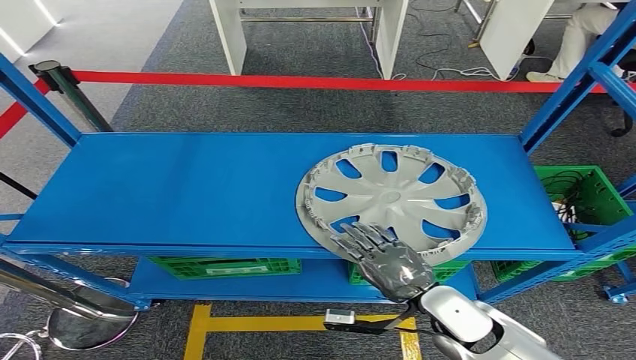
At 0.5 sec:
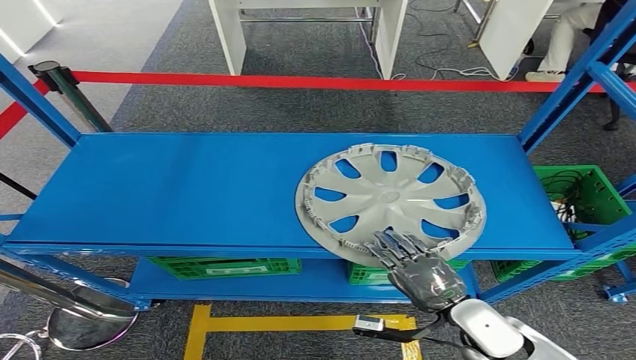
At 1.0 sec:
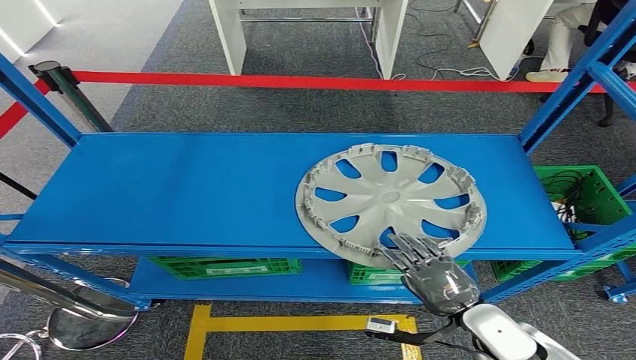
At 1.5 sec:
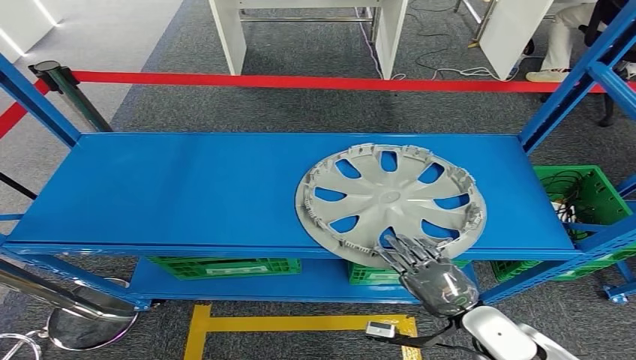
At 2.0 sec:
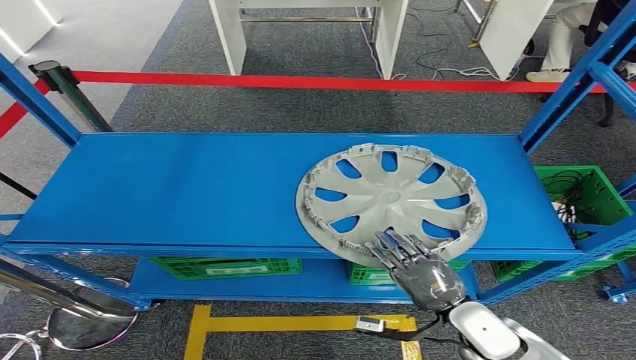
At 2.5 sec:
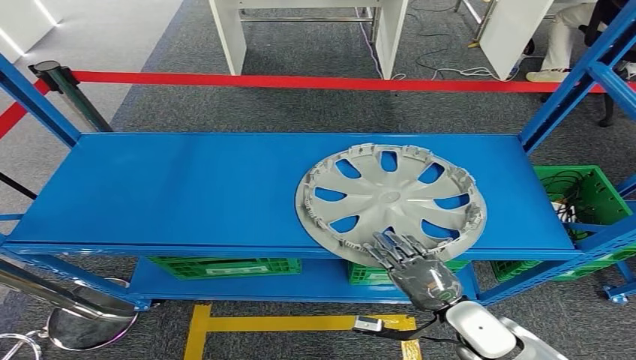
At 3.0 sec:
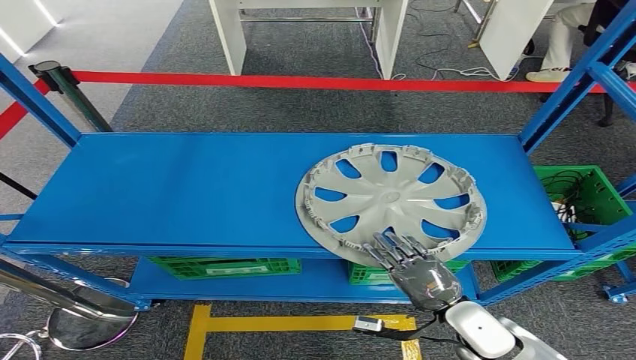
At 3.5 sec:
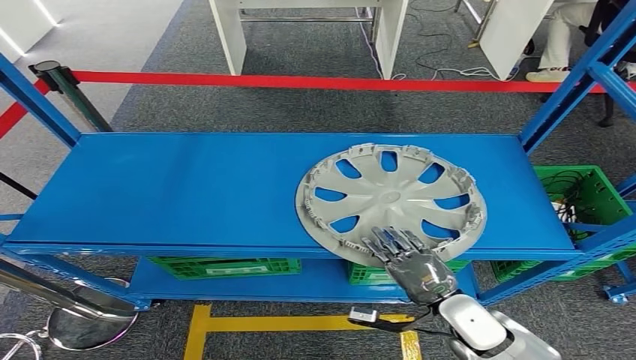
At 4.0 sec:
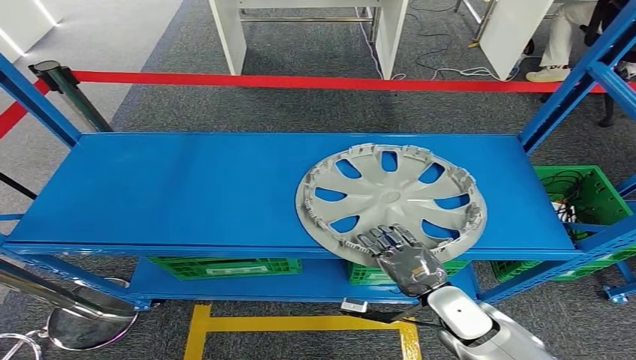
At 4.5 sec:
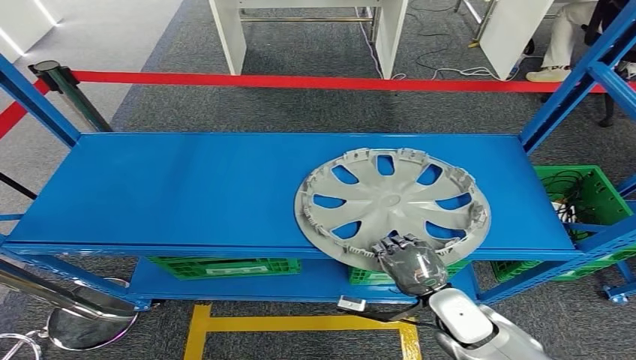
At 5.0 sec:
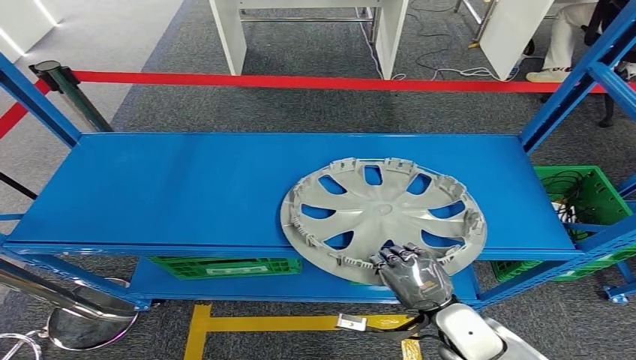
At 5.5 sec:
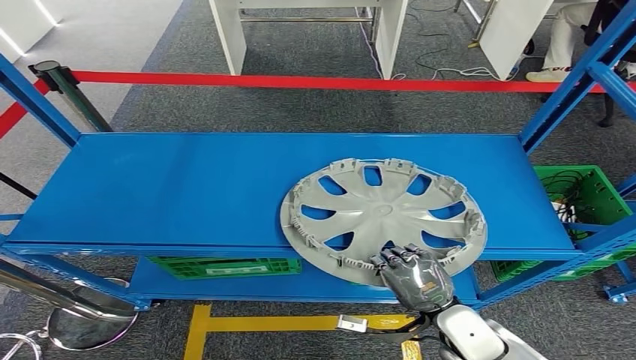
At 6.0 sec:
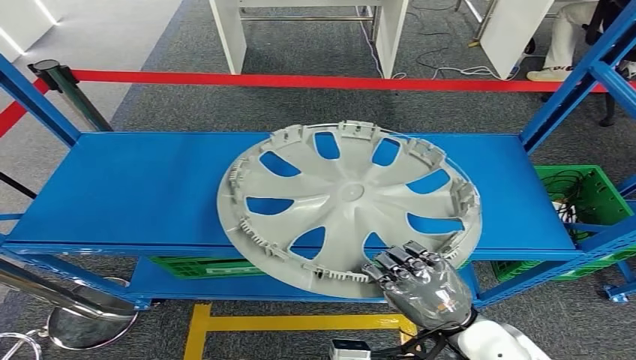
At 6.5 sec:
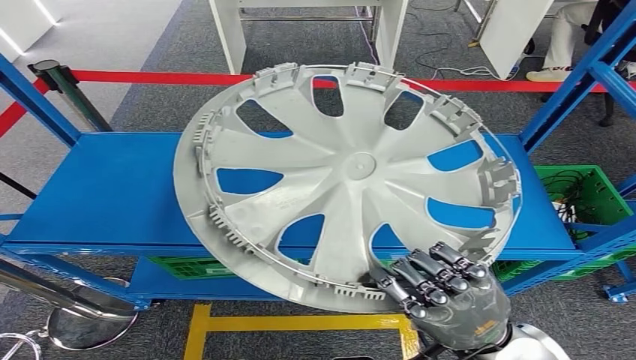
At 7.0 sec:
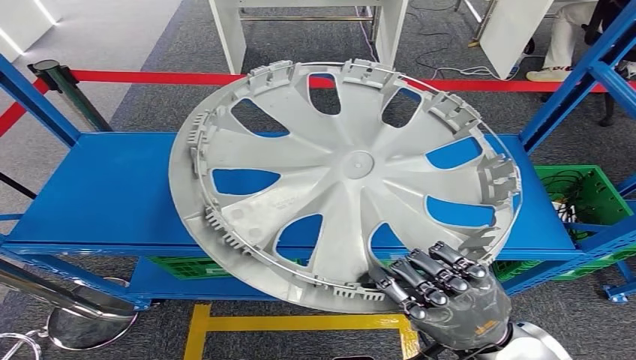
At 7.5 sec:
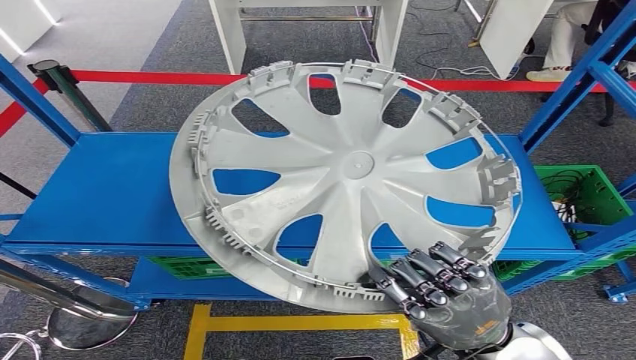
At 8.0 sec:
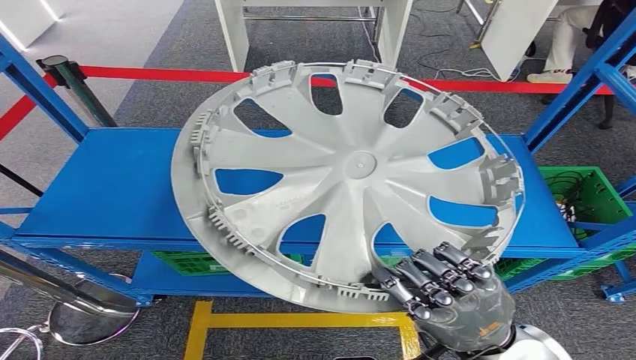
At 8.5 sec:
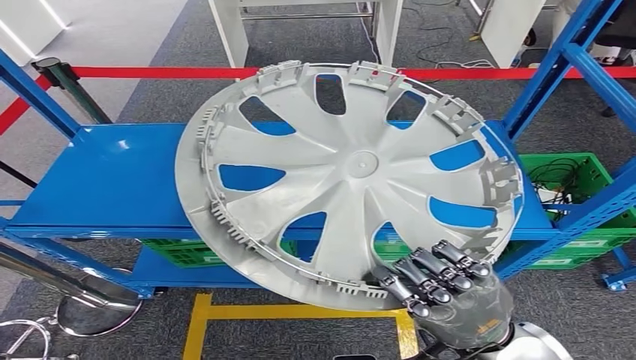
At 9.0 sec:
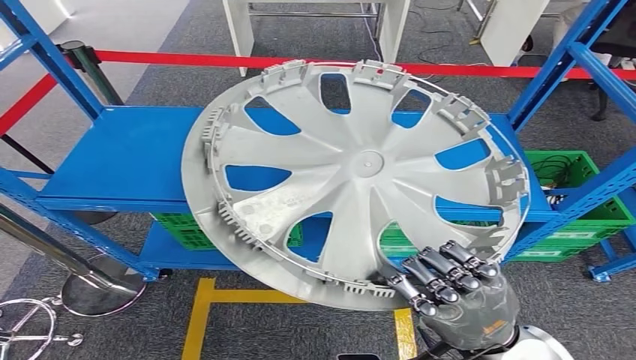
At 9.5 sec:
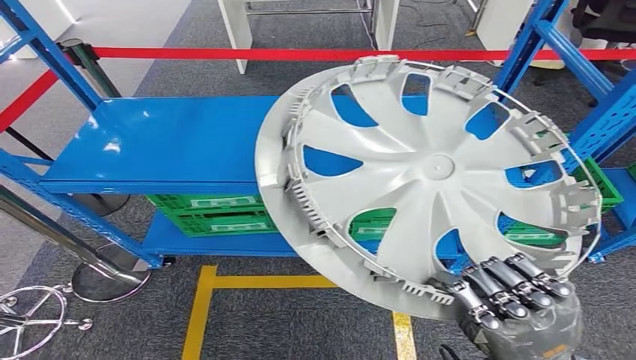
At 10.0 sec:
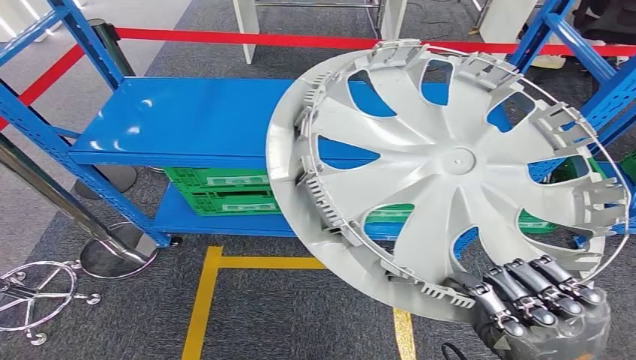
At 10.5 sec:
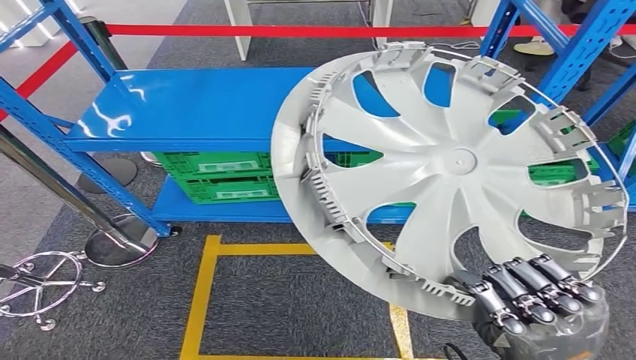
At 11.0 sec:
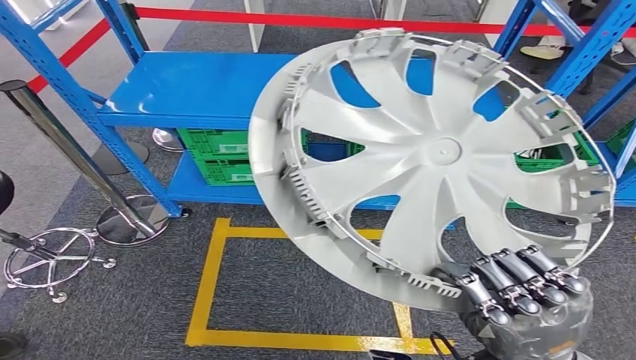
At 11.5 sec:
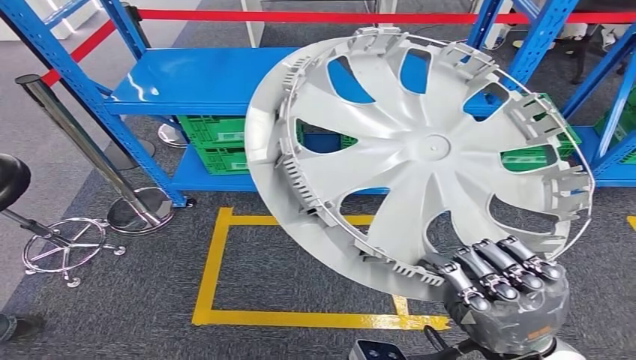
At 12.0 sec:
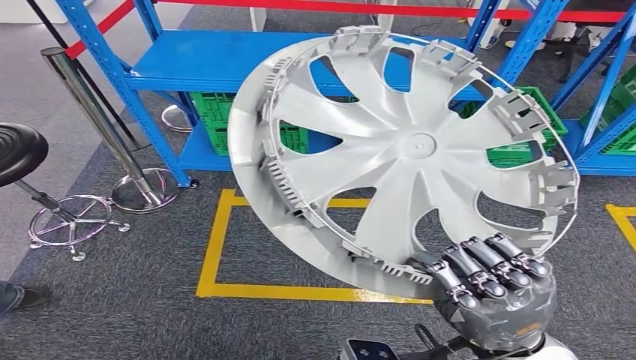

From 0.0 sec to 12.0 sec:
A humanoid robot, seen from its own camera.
Step, from 0.0 sec to 8.0 sec: Pick up the small component from the shelf.
From 0.0 sec to 2.0 sec: The right hand moves approximately 5 cm.
From 2.0 sec to 4.0 sec: The hands move only a little.
From 4.0 sec to 6.0 sec: The right hand shifts about 10 cm upward and backward.

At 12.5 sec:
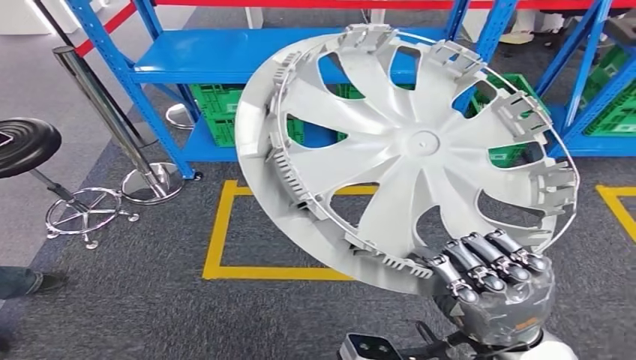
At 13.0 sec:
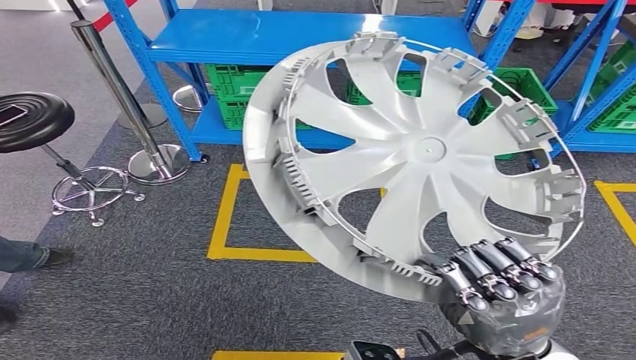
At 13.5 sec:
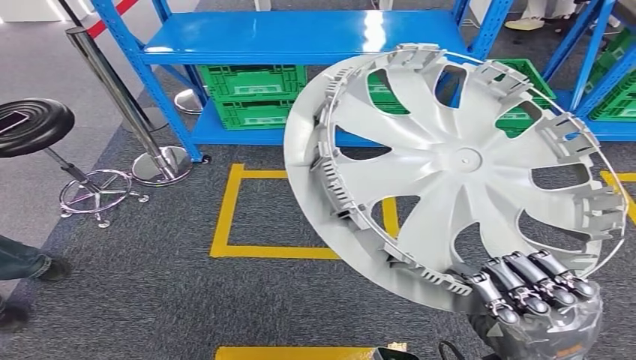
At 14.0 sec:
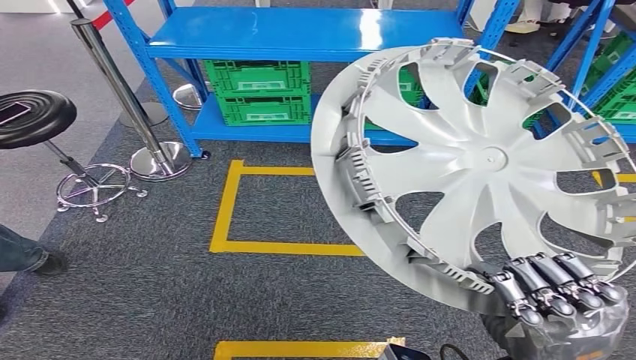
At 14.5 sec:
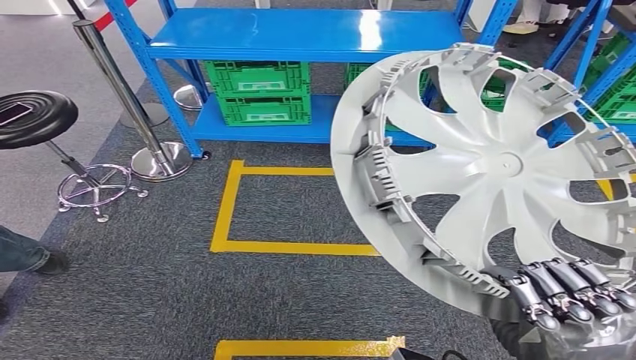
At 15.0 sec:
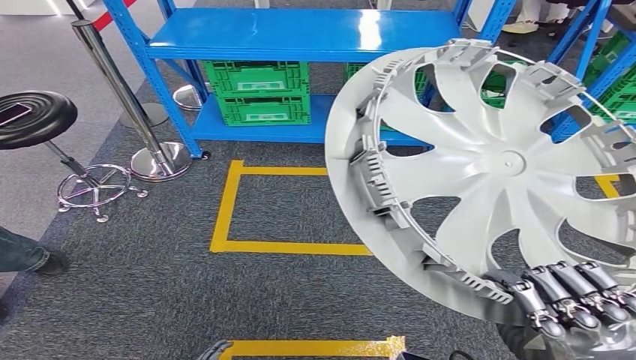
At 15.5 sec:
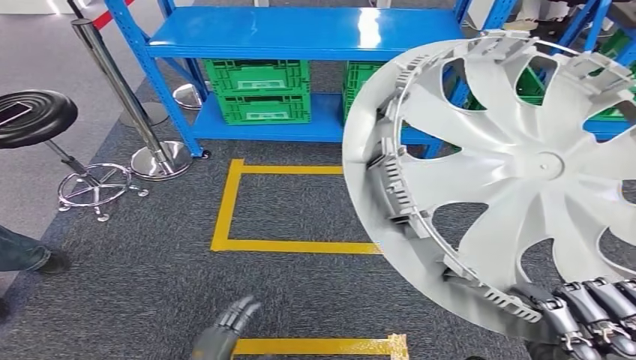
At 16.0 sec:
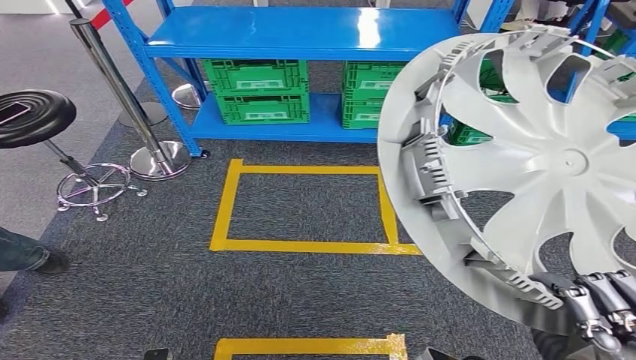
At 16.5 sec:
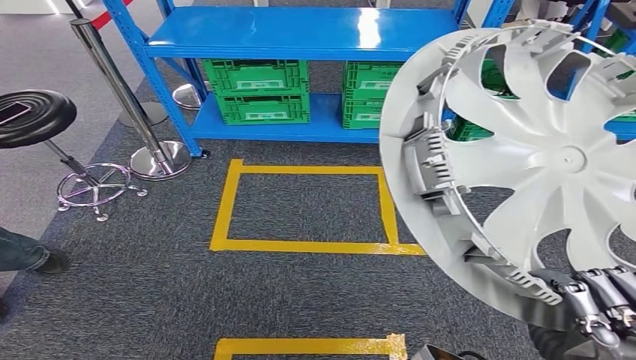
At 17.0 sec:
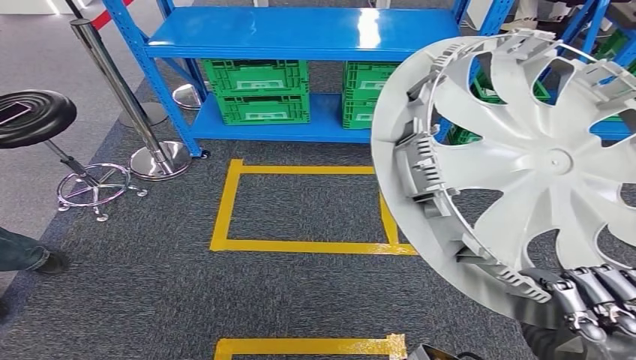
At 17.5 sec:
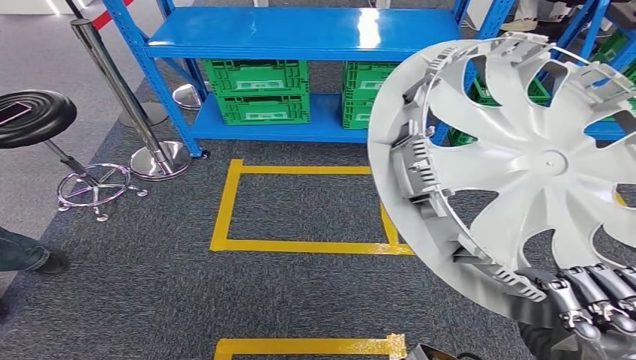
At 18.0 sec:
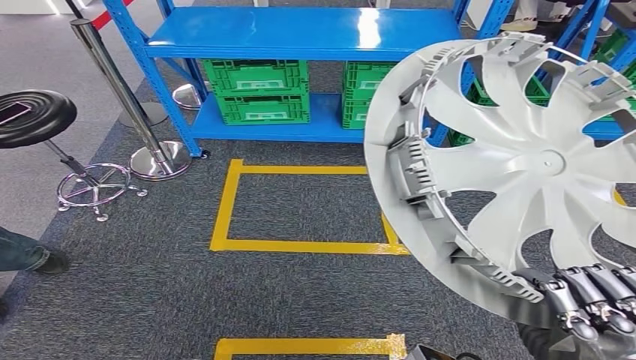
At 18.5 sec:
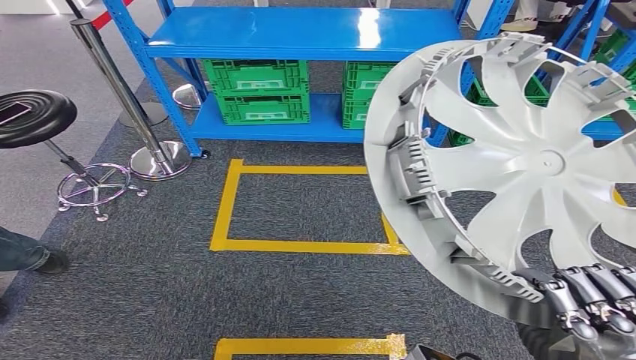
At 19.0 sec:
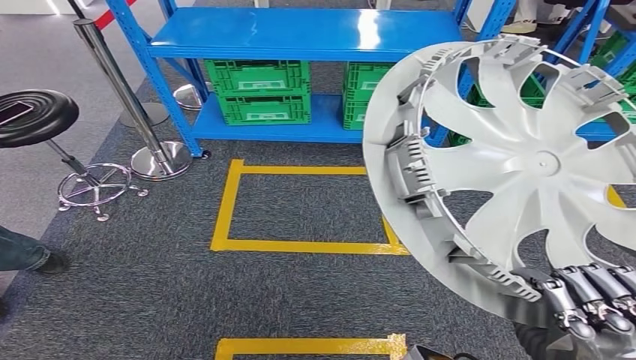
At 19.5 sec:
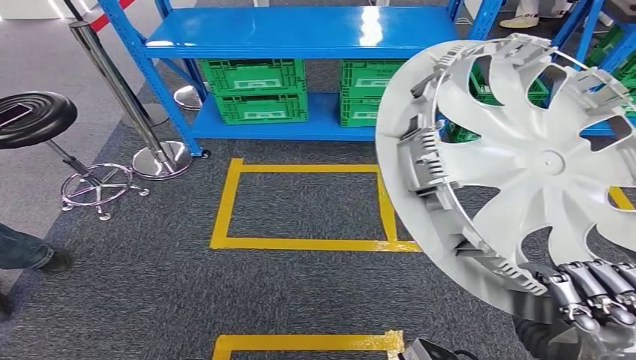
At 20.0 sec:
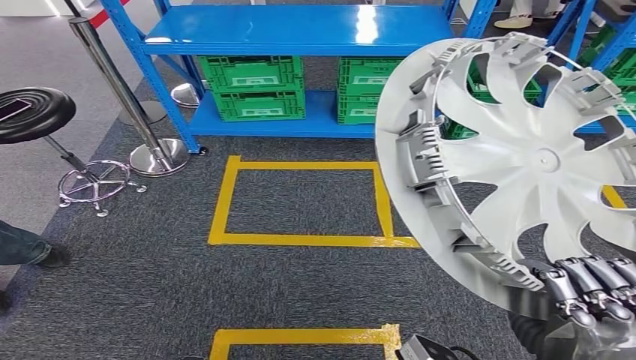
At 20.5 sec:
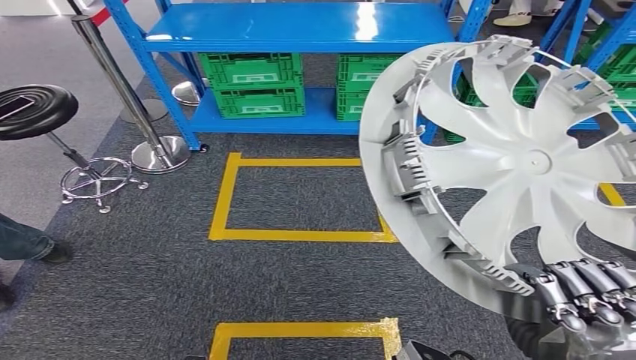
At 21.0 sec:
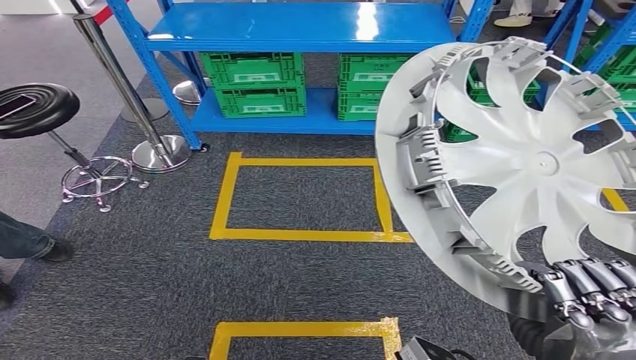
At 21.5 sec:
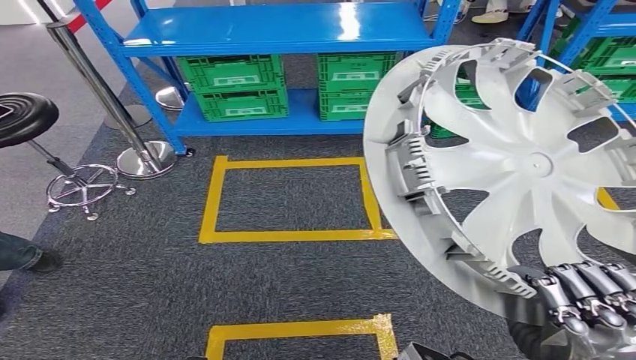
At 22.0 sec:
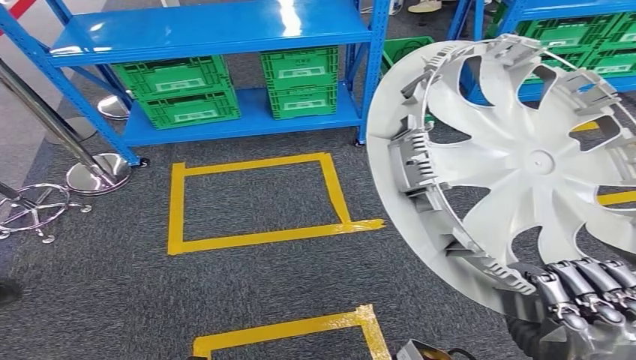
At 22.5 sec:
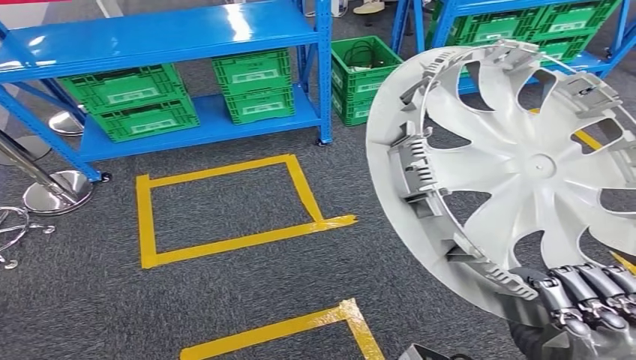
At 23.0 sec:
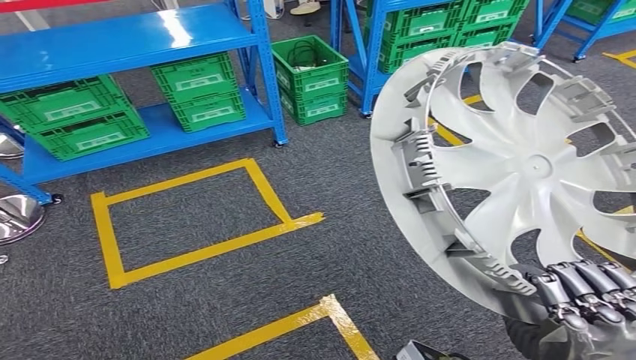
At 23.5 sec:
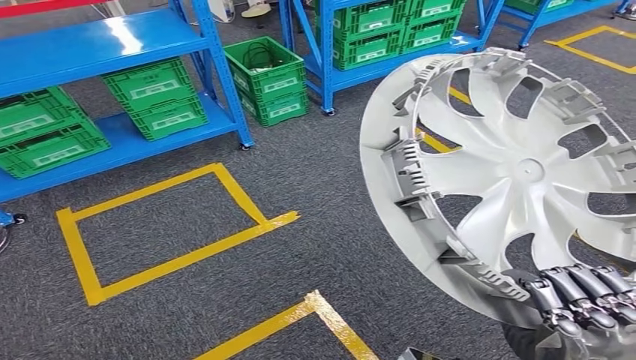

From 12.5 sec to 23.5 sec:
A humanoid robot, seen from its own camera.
From 16.0 sec to 18.0 sec: The hands make only small movements.
